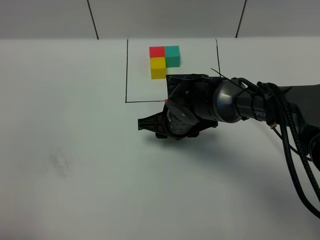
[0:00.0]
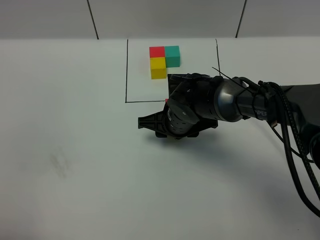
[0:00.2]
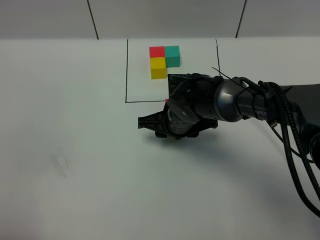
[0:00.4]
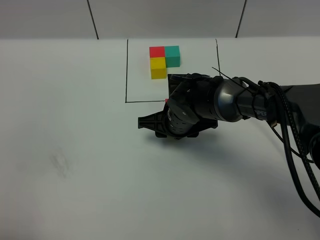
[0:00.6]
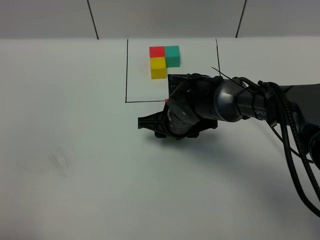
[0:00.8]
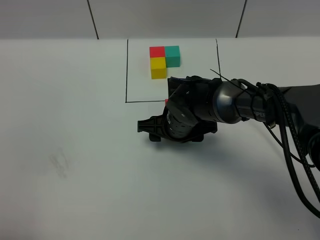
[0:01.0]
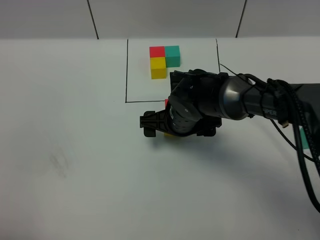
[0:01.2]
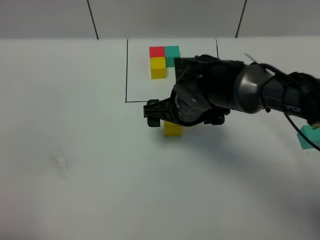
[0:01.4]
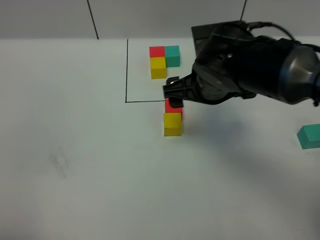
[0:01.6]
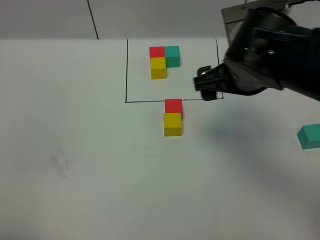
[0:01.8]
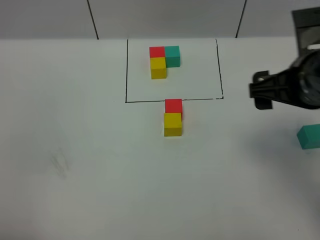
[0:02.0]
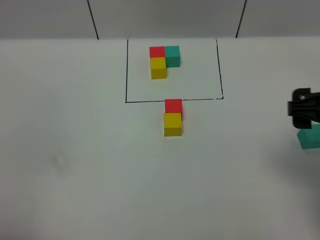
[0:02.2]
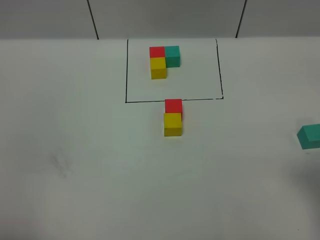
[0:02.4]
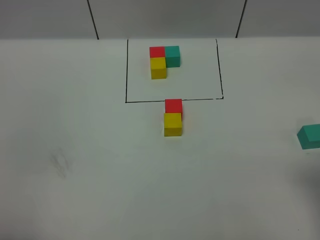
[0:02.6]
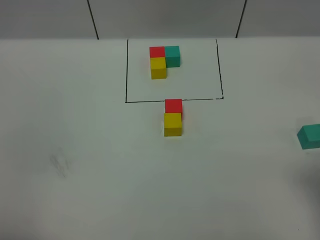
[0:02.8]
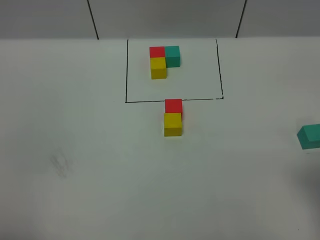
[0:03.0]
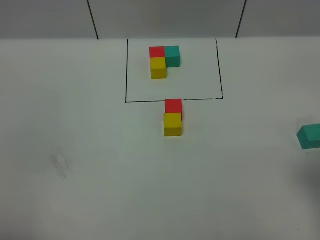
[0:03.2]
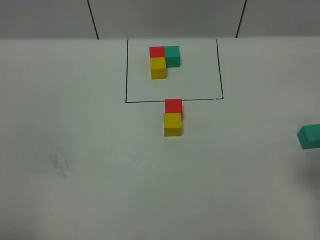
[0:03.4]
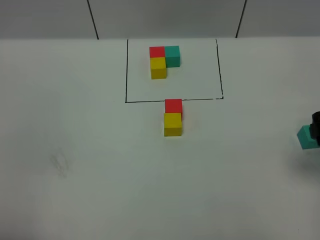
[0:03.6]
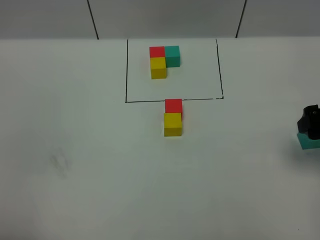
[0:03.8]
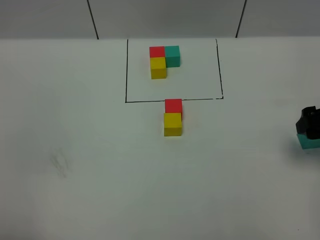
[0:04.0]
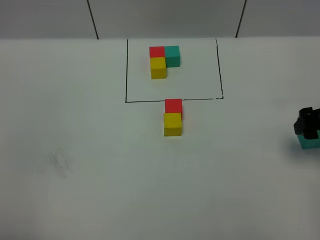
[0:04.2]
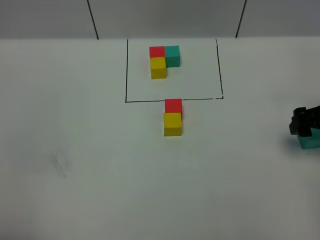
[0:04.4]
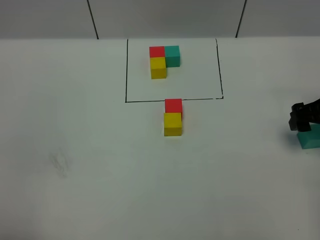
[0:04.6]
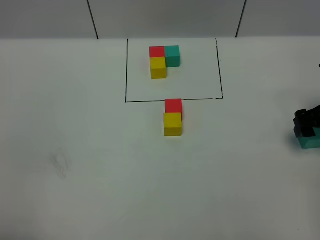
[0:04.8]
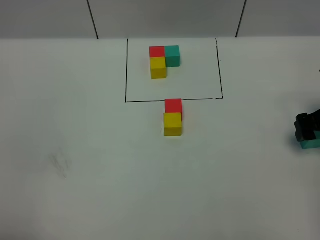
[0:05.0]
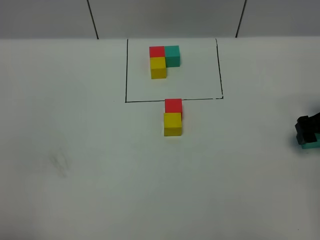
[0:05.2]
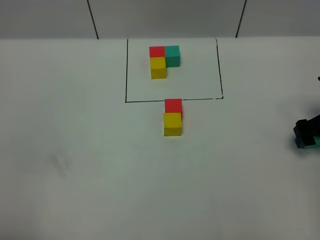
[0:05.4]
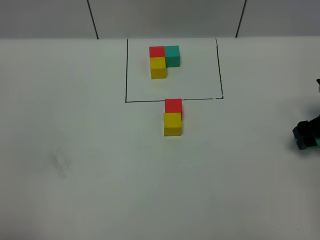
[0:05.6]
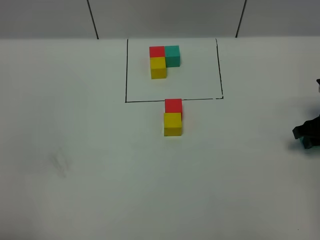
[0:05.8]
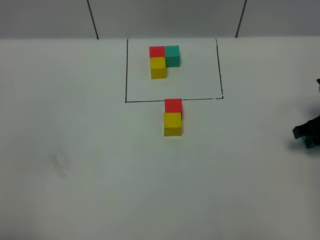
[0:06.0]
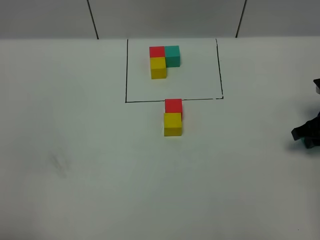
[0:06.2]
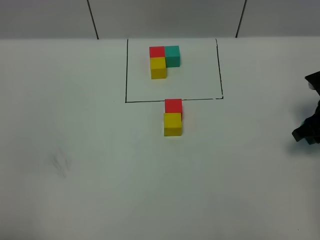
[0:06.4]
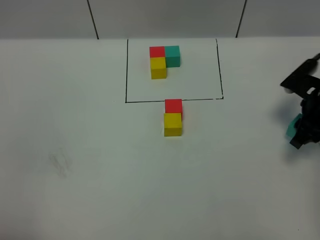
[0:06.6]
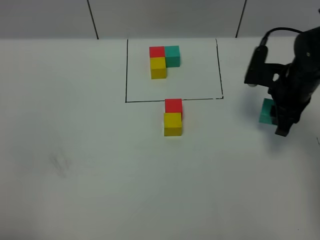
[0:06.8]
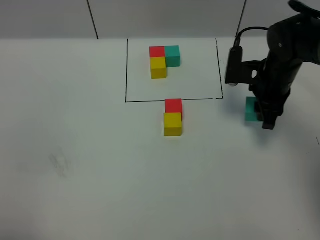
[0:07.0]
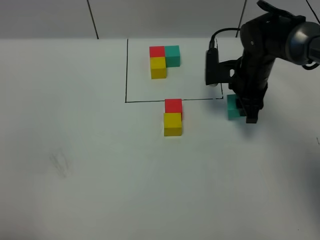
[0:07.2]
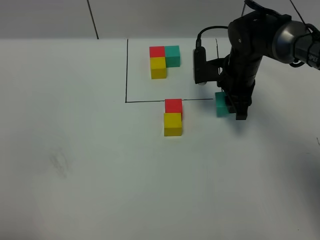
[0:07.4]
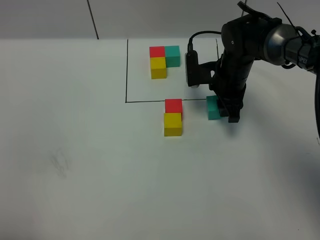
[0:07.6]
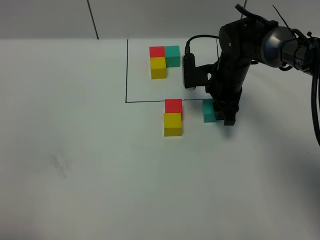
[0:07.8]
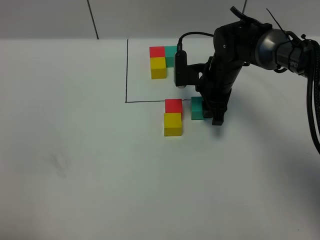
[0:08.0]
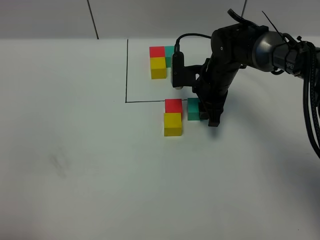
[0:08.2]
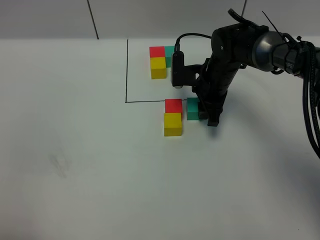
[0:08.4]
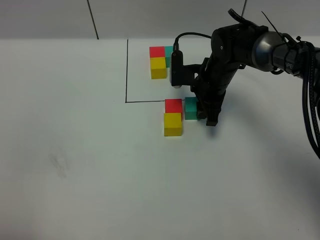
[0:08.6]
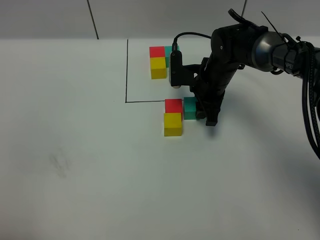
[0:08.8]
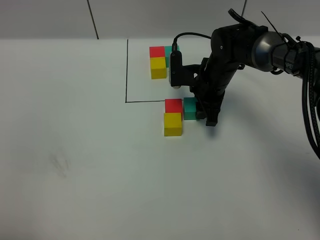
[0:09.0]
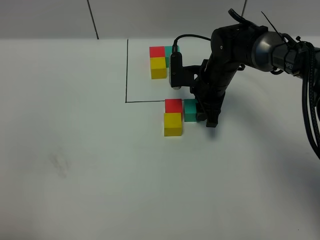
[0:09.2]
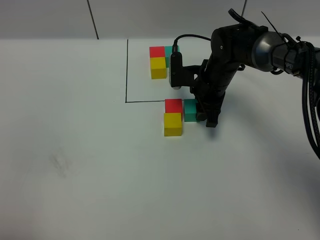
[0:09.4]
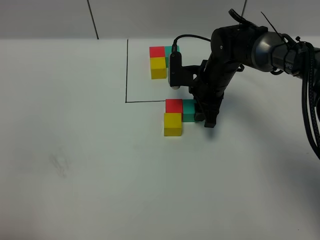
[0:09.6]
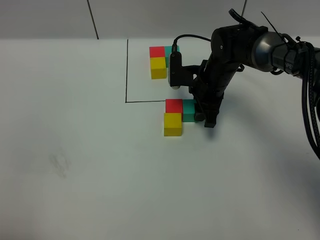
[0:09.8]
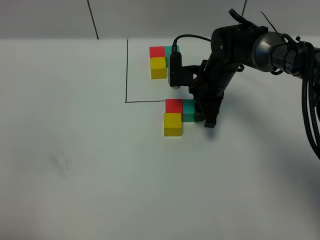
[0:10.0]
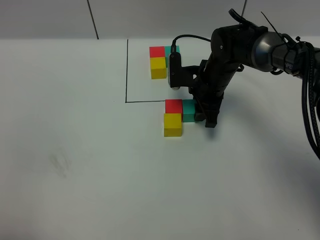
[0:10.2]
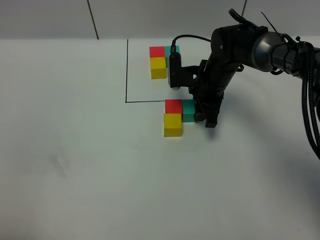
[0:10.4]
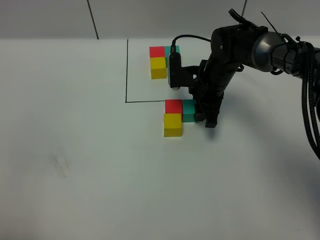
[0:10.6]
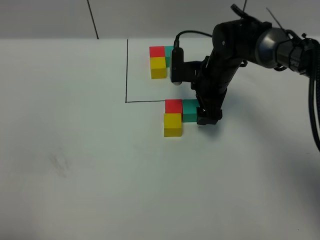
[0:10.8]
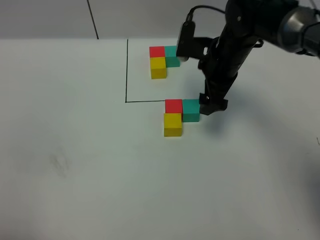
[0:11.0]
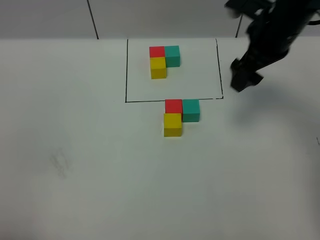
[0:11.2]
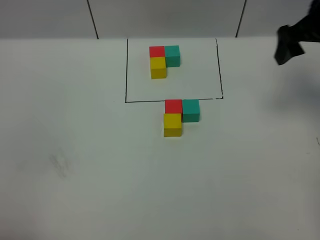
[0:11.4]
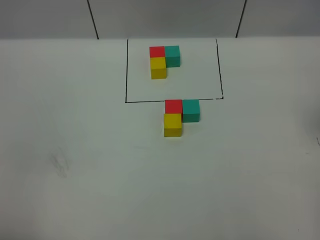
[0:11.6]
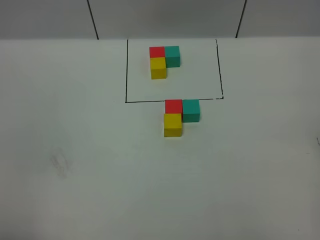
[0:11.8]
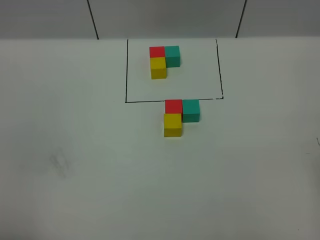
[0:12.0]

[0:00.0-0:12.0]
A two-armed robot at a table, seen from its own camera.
Task of the whole recording: According to the building block template in front, assemble the scattered blocks together.
Step, 0:01.2 to 0:10.6: Put the green build block on the right of the red build block.
0:00.0 to 0:01.6: The right gripper heads upward, covering approximately 15 cm, and opens up.
0:01.6 to 0:03.0: The right gripper is displaced to the right and backward by some 25 cm.
0:03.0 to 0:04.4: The right gripper goes approximately 20 cm forward and downward.
0:04.4 to 0:06.0: The right gripper moves downward, roughly 5 cm, and closes up.
0:06.0 to 0:07.6: The right gripper shifts about 25 cm to the left and forward.
0:07.6 to 0:09.0: There are only small adjustments of the grippers.
0:09.0 to 0:10.4: Neither gripper changes place.
0:10.4 to 0:12.0: The right gripper shifts roughly 40 cm backward, to the right and upward, and opens up.

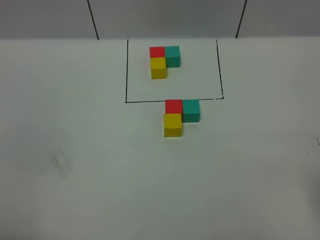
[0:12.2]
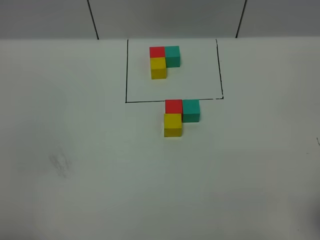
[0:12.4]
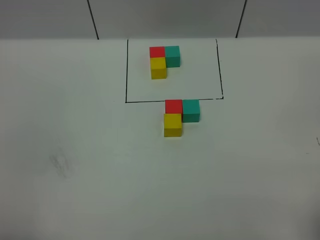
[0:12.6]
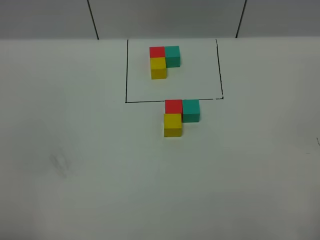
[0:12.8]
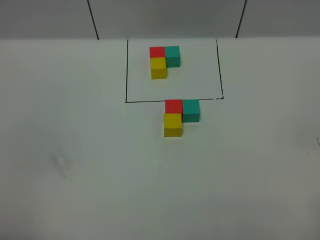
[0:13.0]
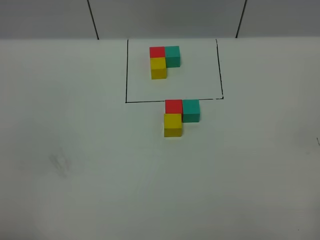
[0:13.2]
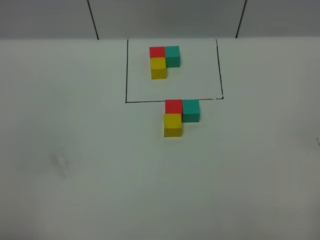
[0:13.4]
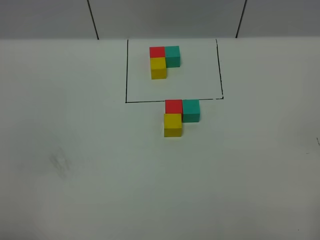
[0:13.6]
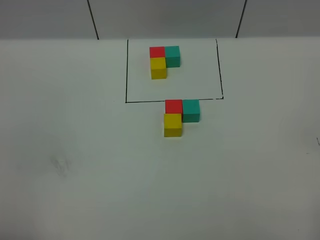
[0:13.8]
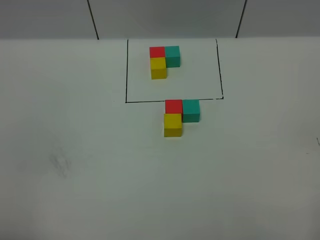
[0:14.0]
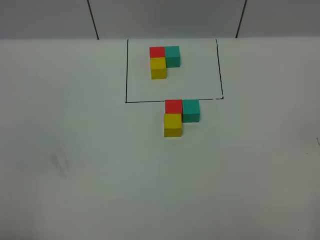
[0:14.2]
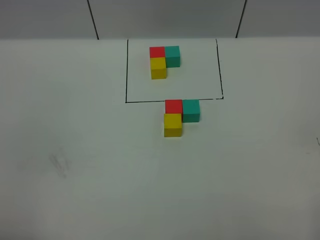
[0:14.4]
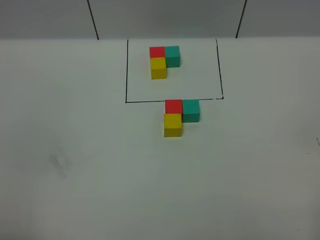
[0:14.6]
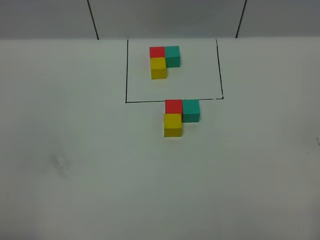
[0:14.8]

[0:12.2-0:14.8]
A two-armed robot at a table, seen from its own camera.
Task of the whole recording: According to the building block template in front, assemble the scattered blocks together.
0:13.4 to 0:14.8: Both grippers stay put.
